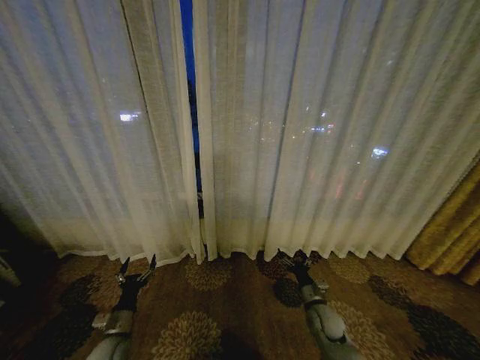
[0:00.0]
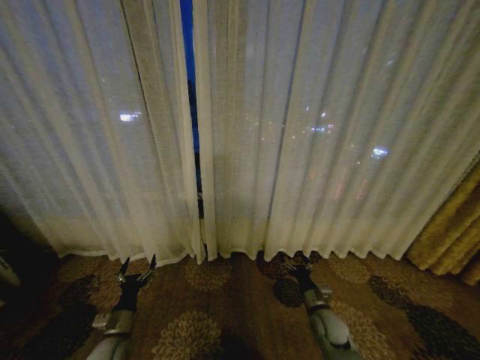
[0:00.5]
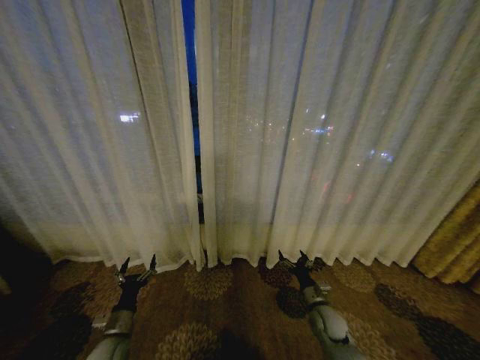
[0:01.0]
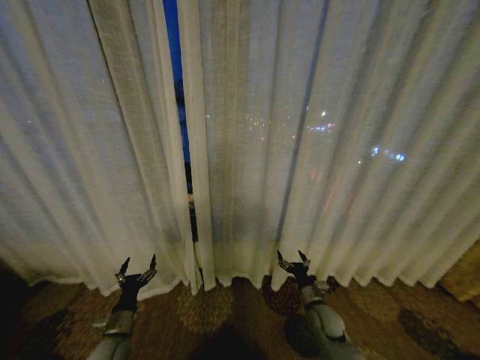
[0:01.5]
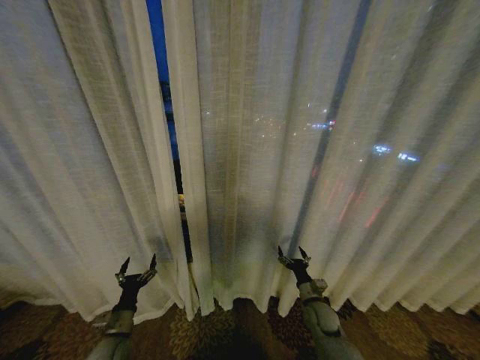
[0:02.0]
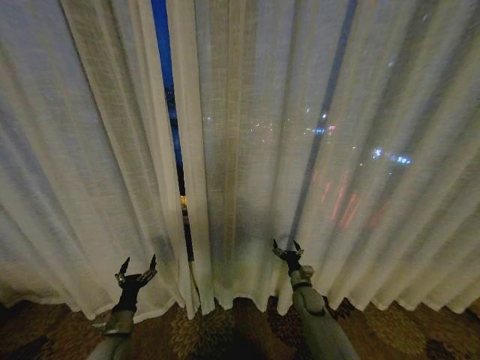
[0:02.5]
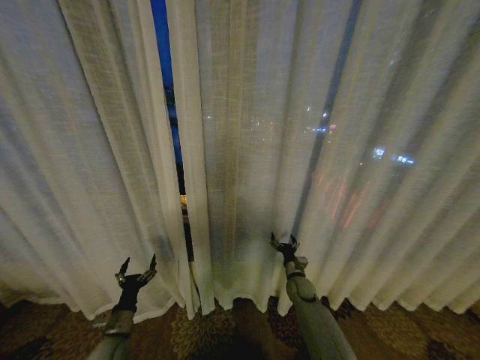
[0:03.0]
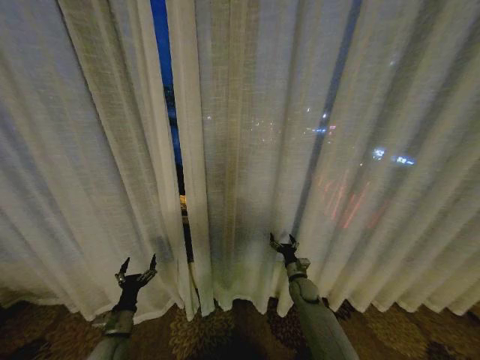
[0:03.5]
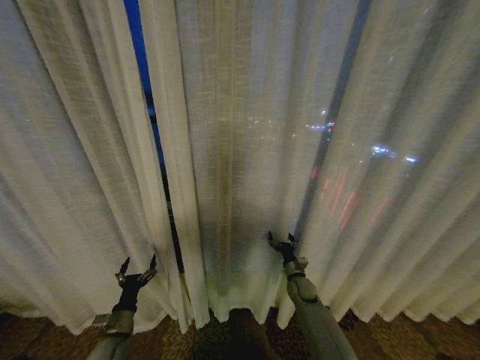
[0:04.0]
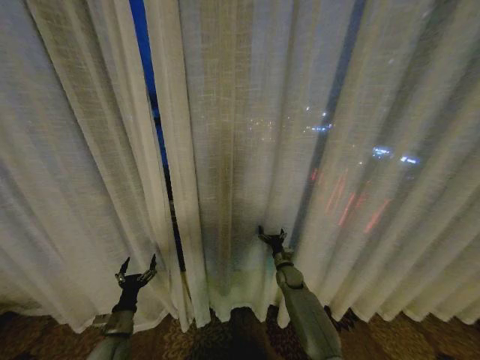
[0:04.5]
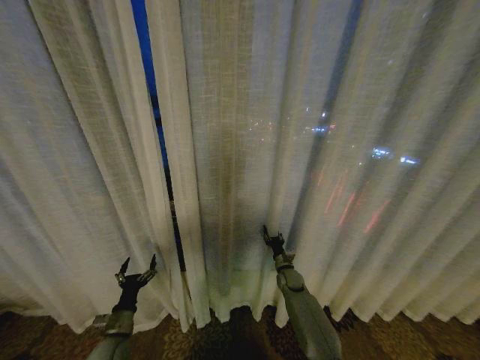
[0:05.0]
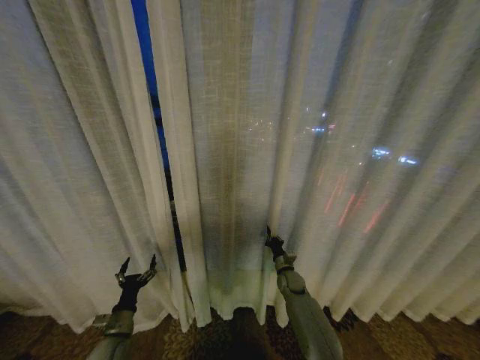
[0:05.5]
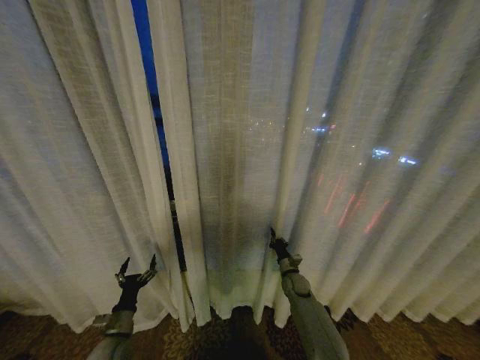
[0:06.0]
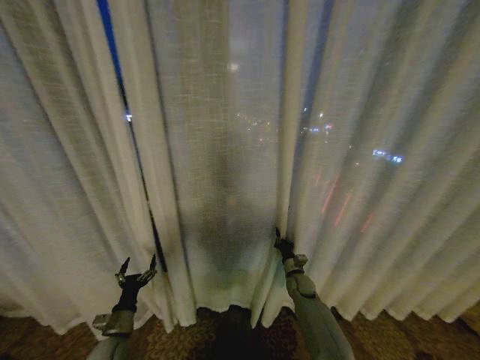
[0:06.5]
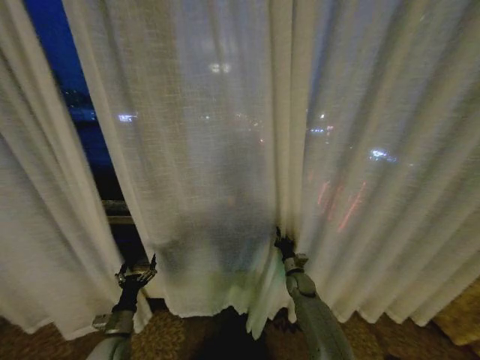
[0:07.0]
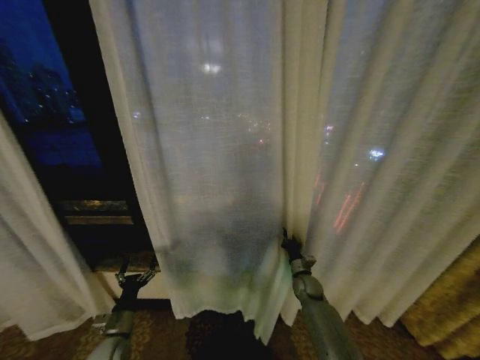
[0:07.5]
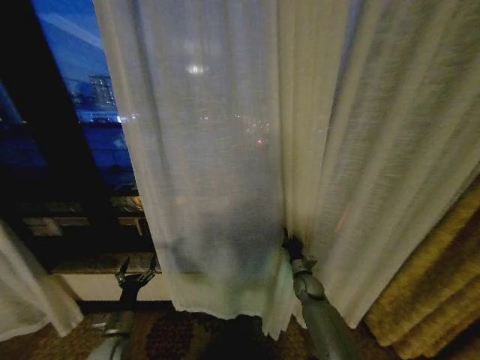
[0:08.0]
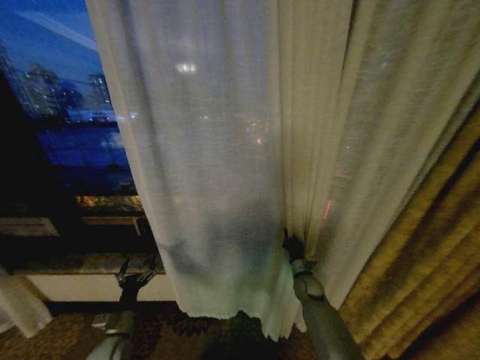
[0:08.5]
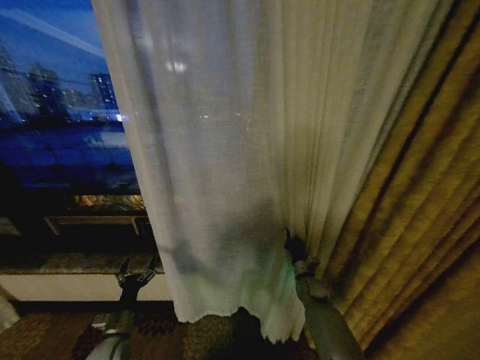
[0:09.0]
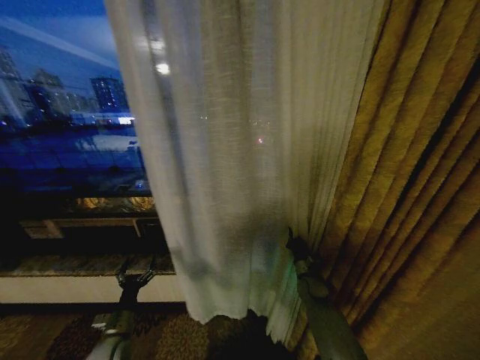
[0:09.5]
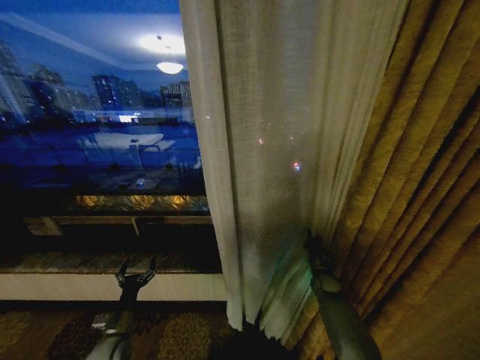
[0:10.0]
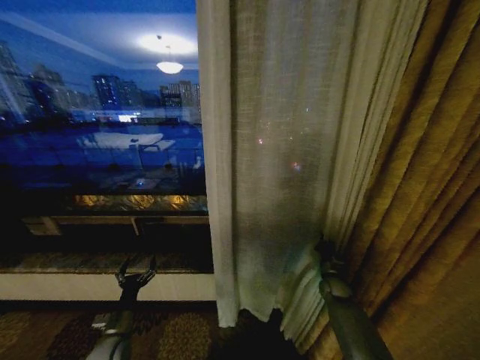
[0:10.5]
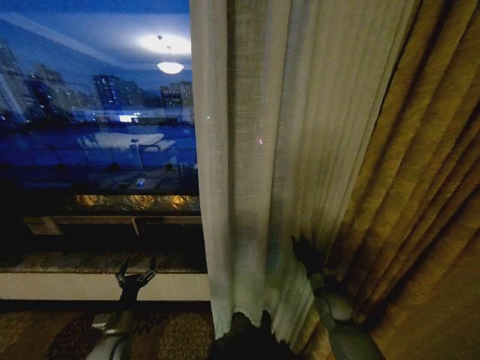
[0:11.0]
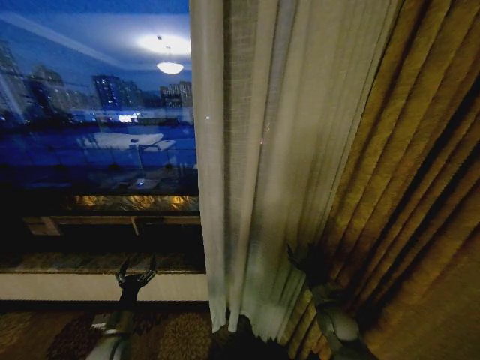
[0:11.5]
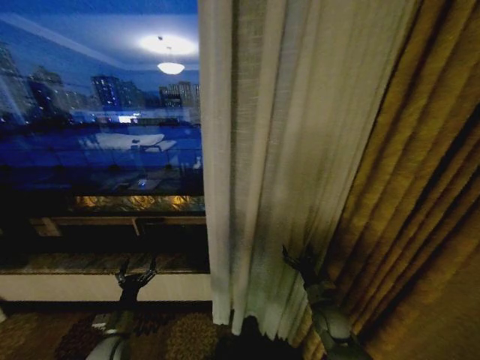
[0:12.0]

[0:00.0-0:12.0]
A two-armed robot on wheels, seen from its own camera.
Task of the whole recording: Open the curtains by pulling them apart, changing their state from closed to fully open.
0:02.0 to 0:04.0: The right gripper moves forward, about 10 cm.
0:04.0 to 0:06.0: The right gripper closes its fingers.
0:08.0 to 0:10.0: The right gripper moves to the right, about 5 cm.
0:10.0 to 0:12.0: The right gripper travels backward and to the left by roughly 15 cm, and opens.

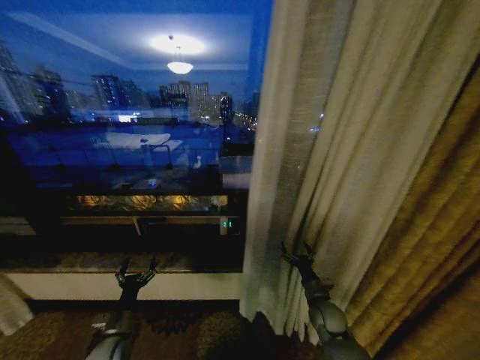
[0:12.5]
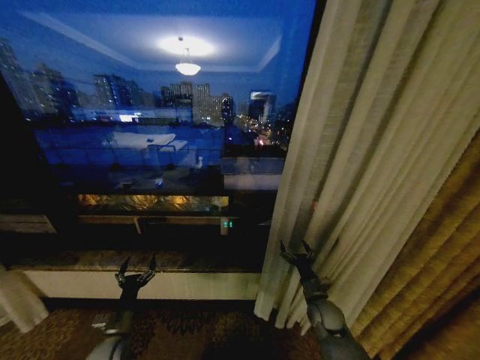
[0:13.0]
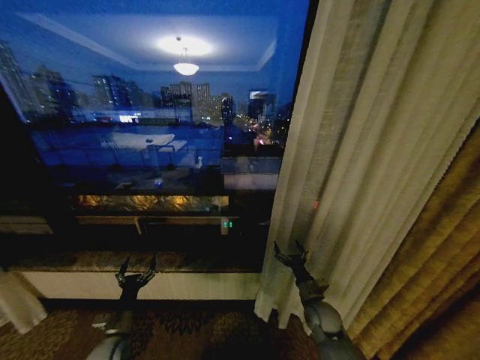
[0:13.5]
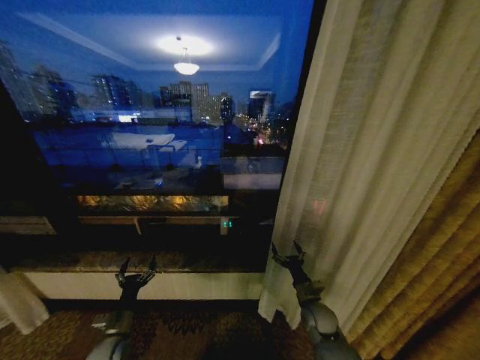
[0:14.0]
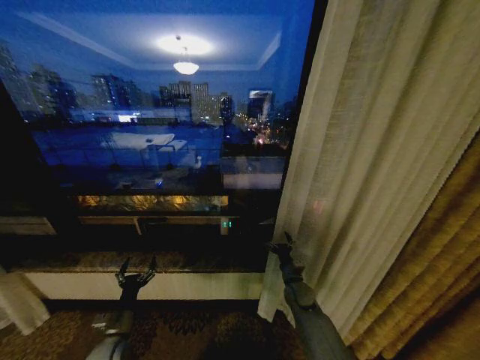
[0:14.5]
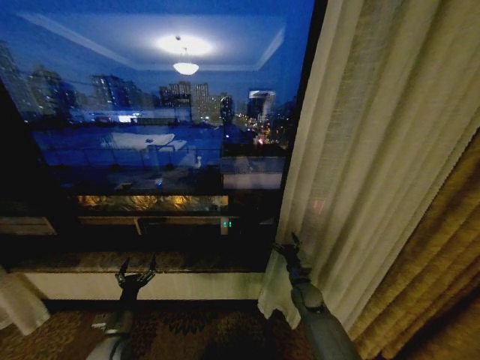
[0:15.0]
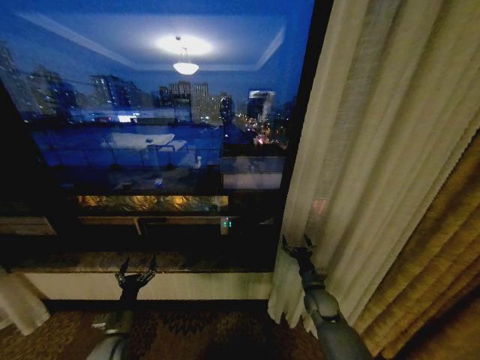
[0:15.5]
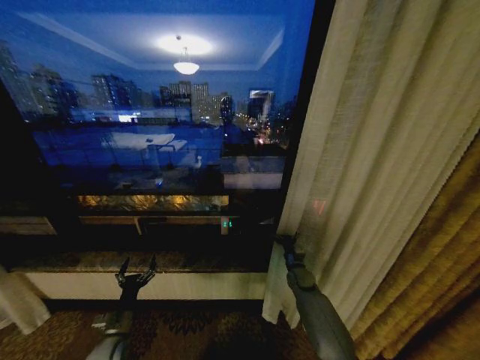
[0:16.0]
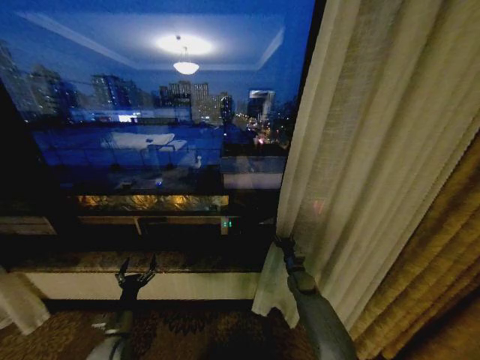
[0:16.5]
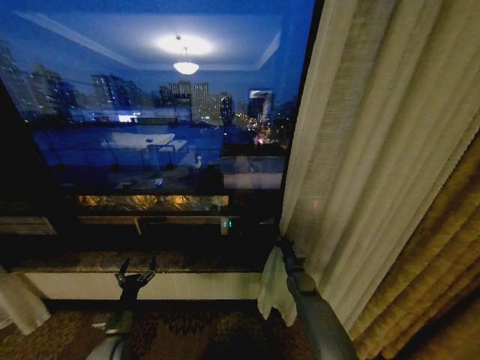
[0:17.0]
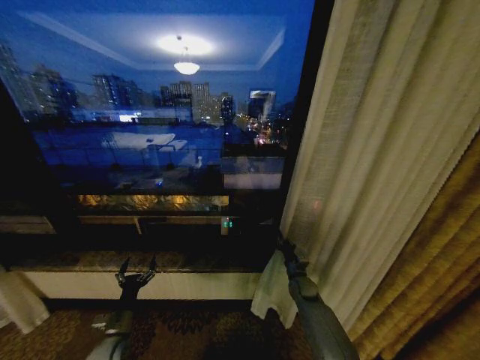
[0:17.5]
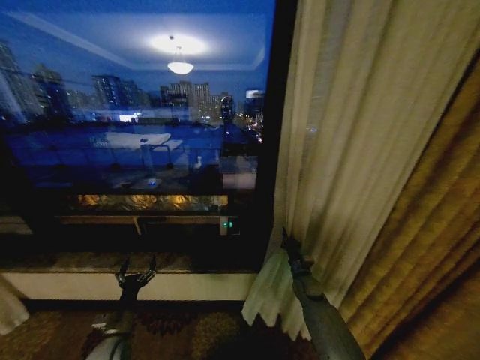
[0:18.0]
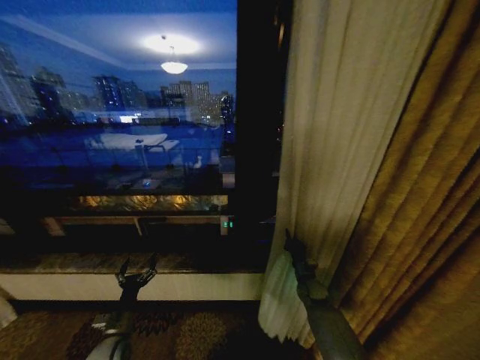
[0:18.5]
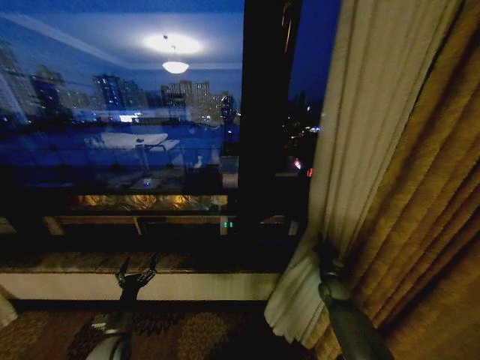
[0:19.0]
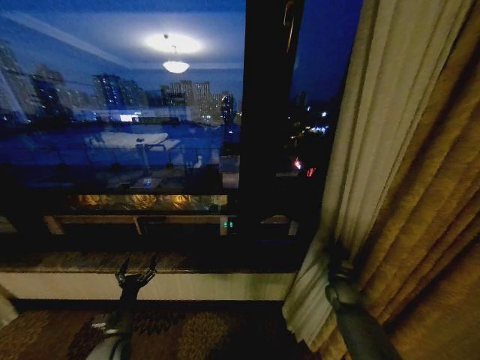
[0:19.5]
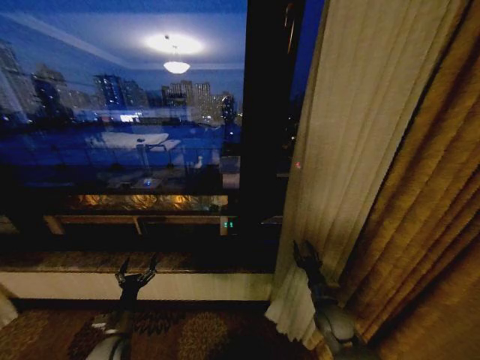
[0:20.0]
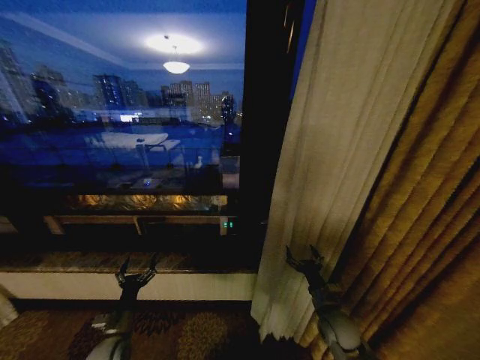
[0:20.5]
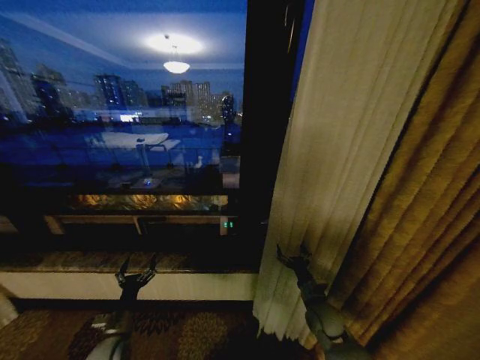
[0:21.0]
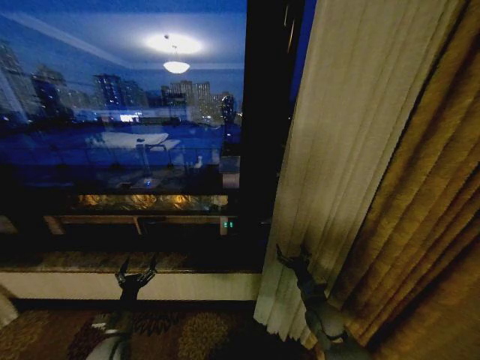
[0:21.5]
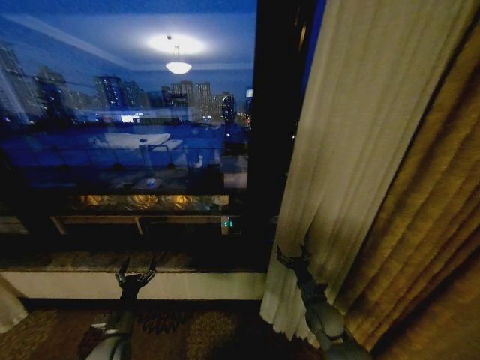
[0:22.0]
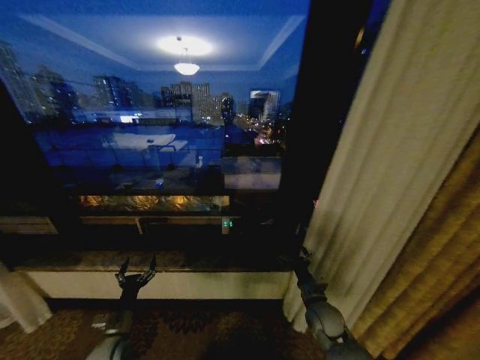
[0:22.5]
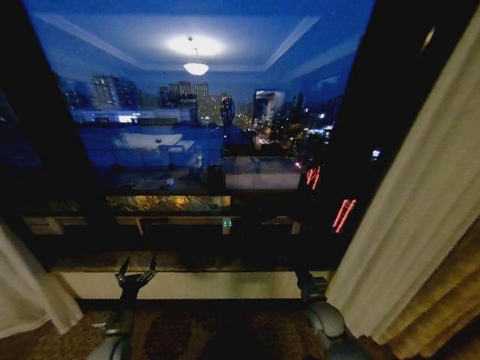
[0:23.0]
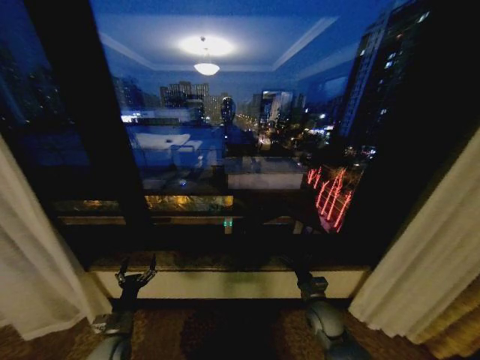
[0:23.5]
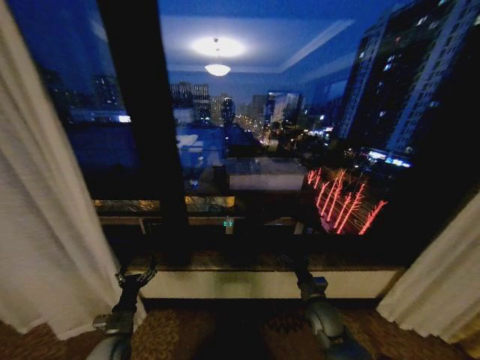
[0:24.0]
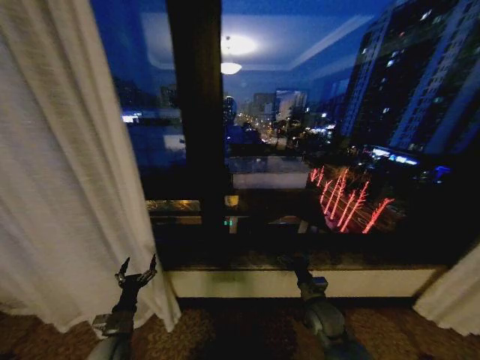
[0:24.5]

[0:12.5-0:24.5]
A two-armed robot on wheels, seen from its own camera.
Task of the whole recording: Open the curtains by pulling them apart, changing their state from closed to fully open.
0:12.5 to 0:14.5: The right gripper goes some 10 cm forward and to the left.
0:14.5 to 0:16.5: The right gripper shifts about 5 cm forward.
0:16.5 to 0:18.5: The right gripper closes.
0:18.5 to 0:20.5: The right gripper goes about 15 cm backward and upward, and opens up.

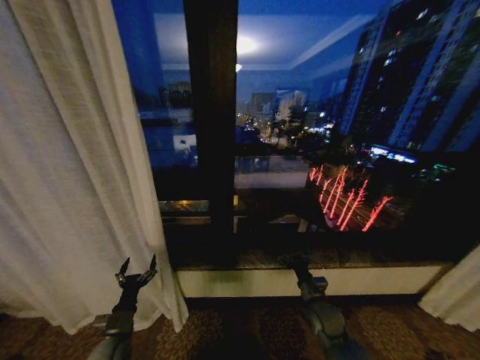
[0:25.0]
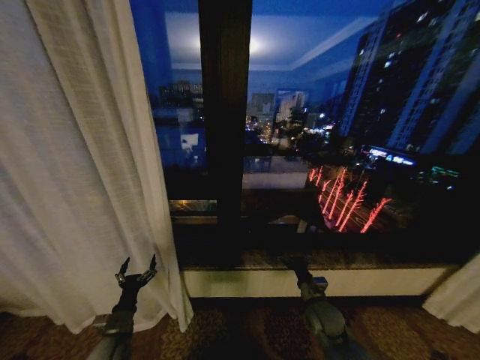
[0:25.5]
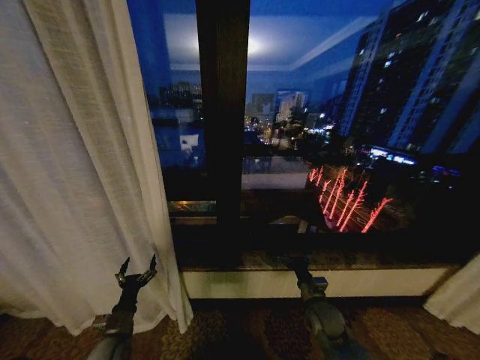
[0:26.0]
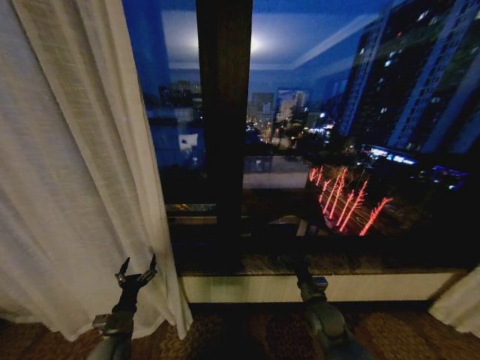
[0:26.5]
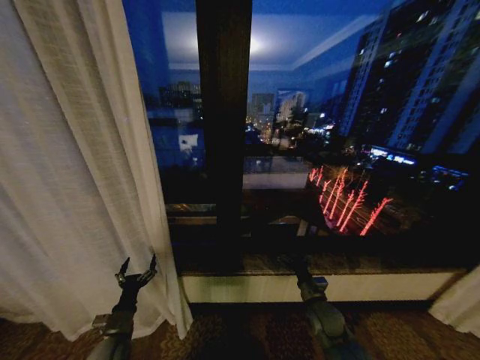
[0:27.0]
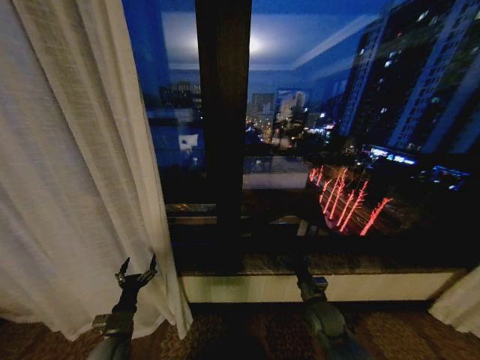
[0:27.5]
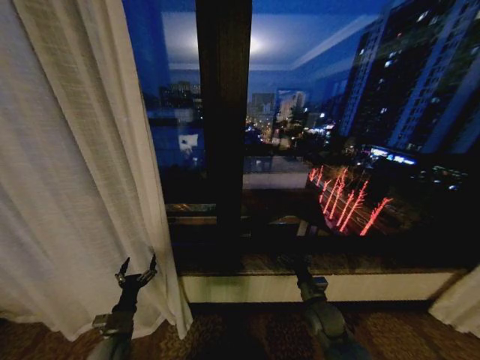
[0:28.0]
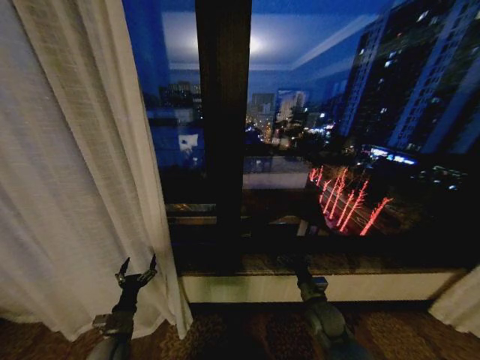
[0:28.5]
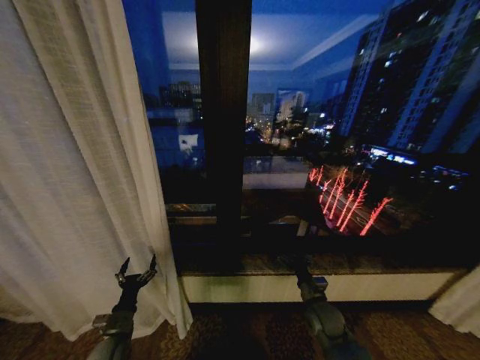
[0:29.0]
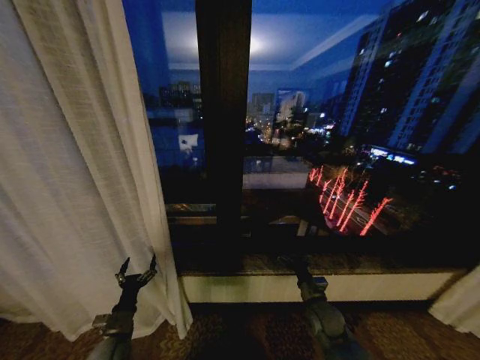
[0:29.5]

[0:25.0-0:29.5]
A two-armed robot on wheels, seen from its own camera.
Task of the whole recording: Open the curtains by pulling them apart, changing their state from closed to fully open.
0:25.0 to 0:29.5: Neither gripper changes place.
